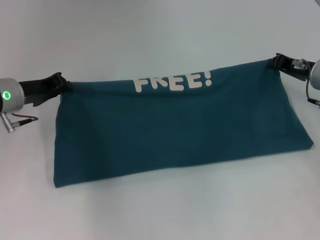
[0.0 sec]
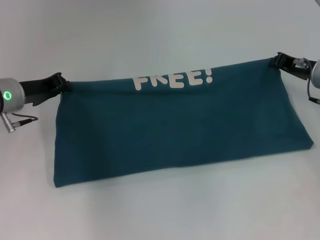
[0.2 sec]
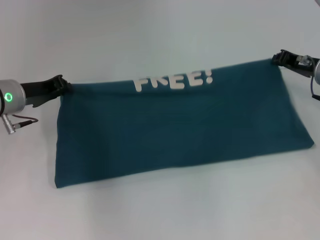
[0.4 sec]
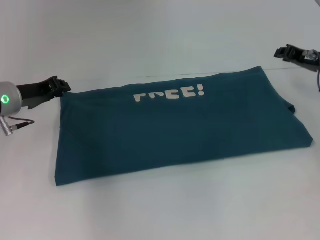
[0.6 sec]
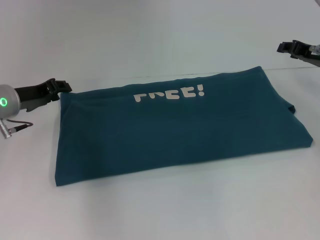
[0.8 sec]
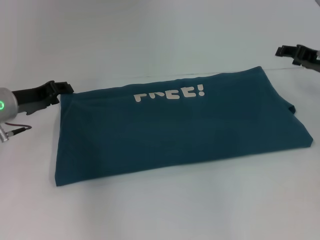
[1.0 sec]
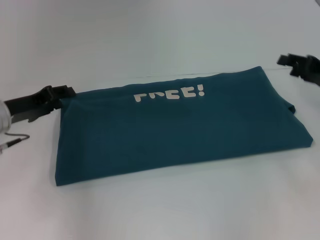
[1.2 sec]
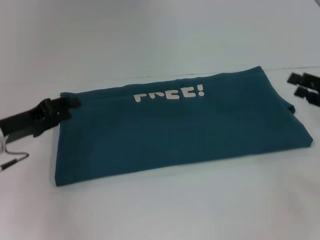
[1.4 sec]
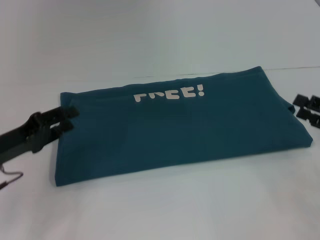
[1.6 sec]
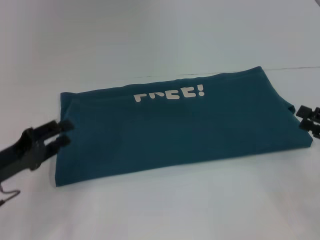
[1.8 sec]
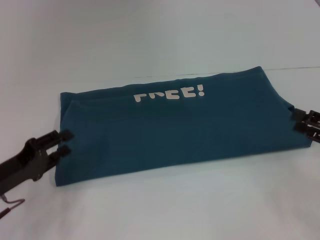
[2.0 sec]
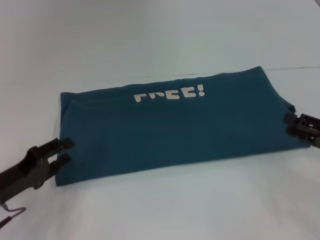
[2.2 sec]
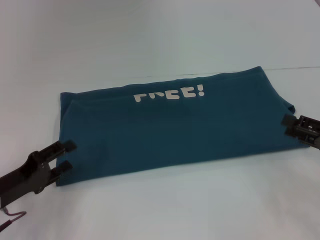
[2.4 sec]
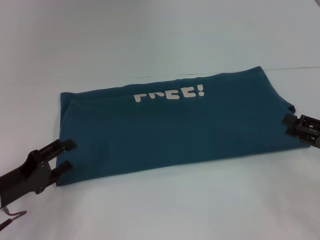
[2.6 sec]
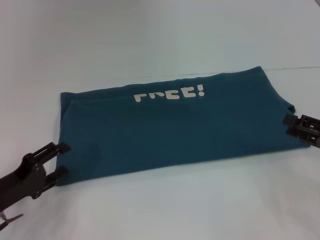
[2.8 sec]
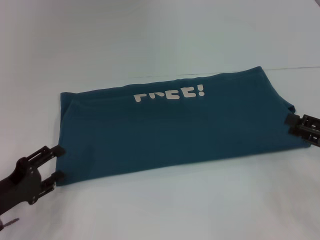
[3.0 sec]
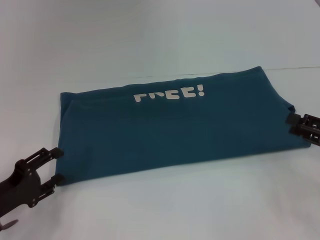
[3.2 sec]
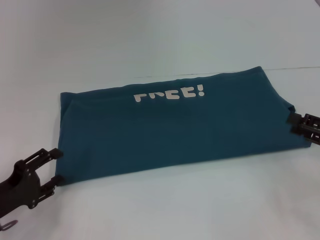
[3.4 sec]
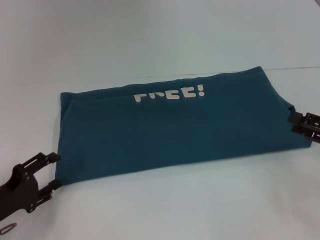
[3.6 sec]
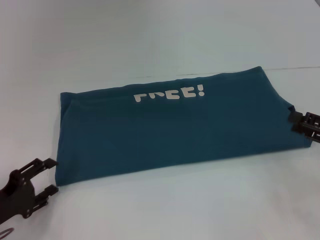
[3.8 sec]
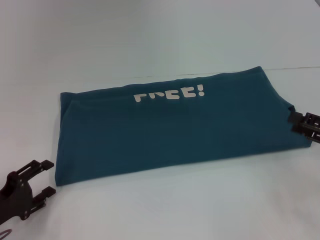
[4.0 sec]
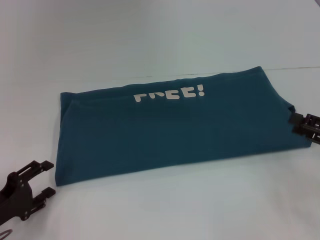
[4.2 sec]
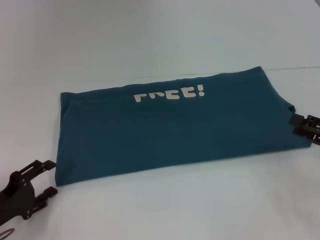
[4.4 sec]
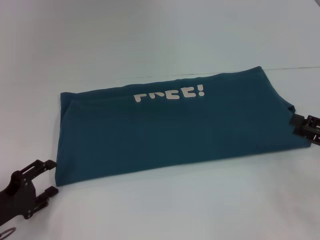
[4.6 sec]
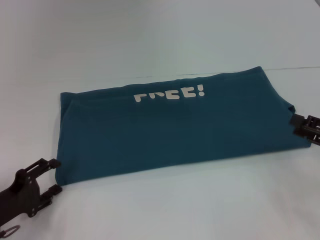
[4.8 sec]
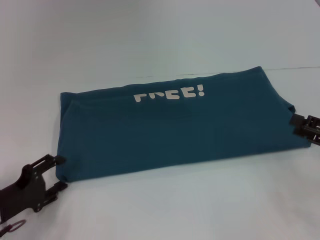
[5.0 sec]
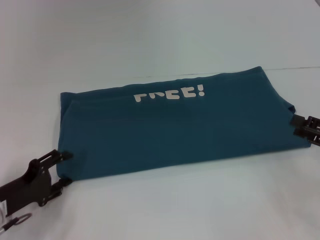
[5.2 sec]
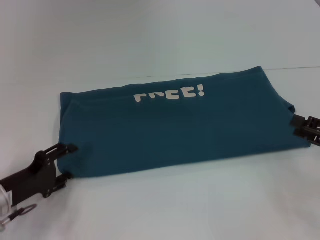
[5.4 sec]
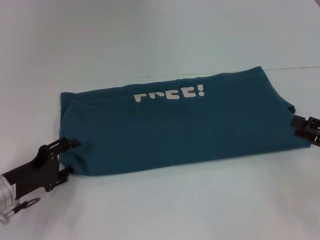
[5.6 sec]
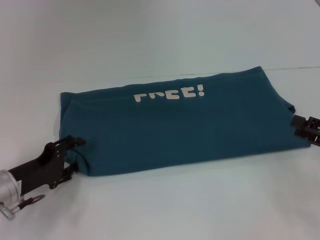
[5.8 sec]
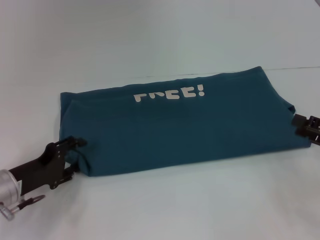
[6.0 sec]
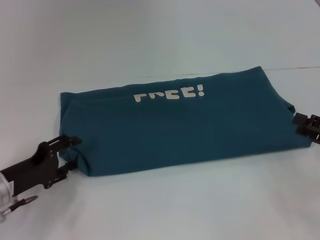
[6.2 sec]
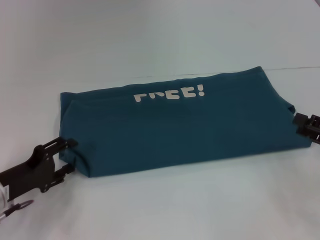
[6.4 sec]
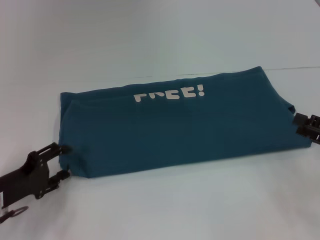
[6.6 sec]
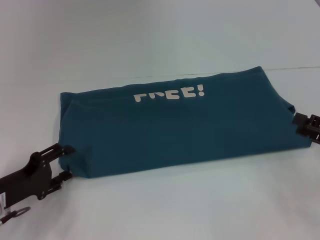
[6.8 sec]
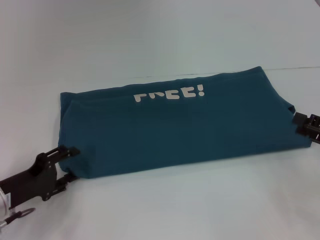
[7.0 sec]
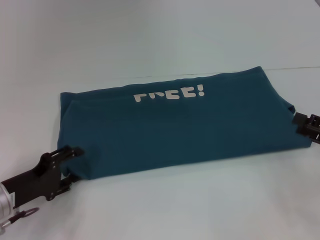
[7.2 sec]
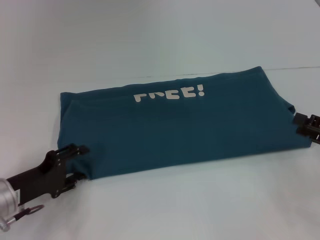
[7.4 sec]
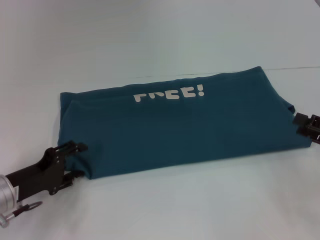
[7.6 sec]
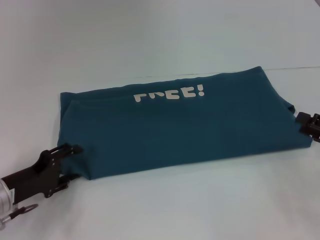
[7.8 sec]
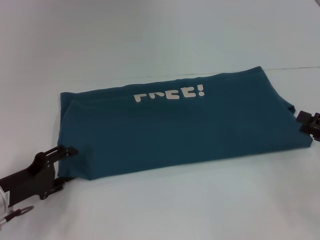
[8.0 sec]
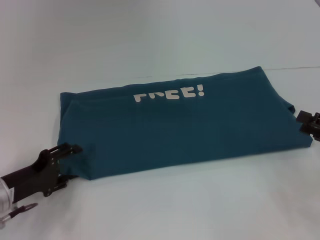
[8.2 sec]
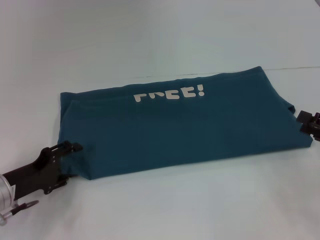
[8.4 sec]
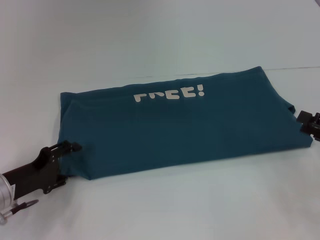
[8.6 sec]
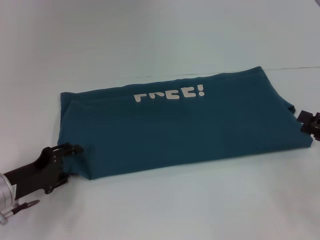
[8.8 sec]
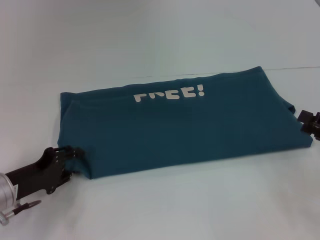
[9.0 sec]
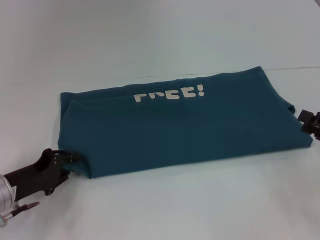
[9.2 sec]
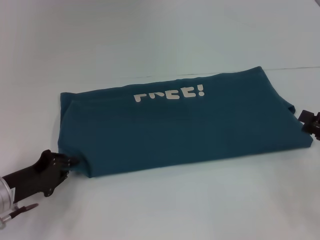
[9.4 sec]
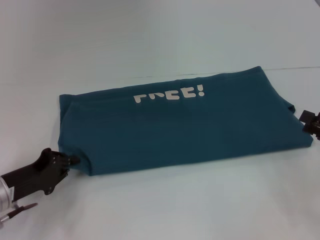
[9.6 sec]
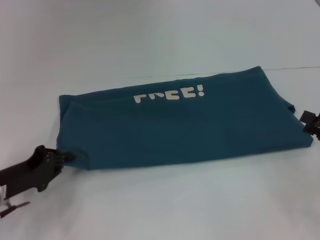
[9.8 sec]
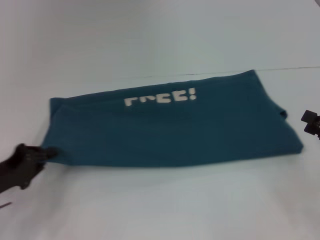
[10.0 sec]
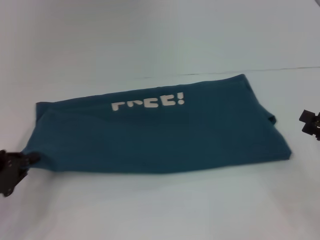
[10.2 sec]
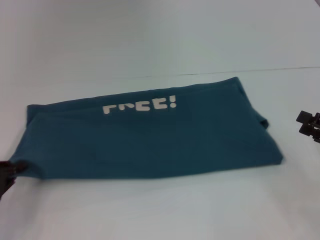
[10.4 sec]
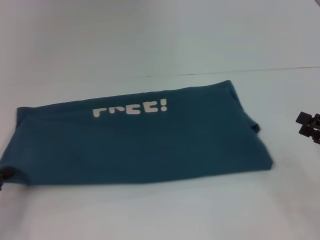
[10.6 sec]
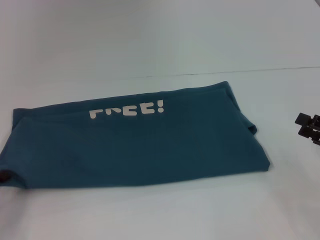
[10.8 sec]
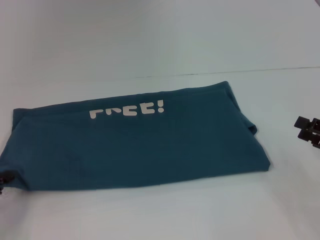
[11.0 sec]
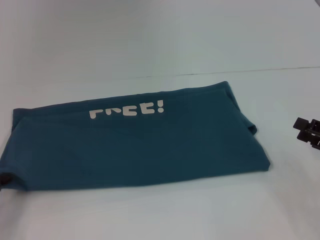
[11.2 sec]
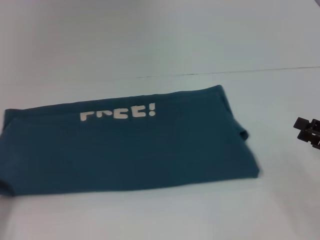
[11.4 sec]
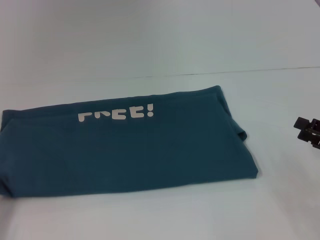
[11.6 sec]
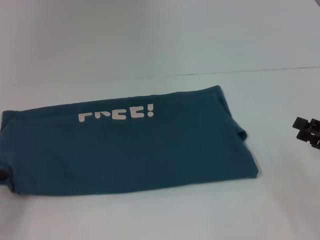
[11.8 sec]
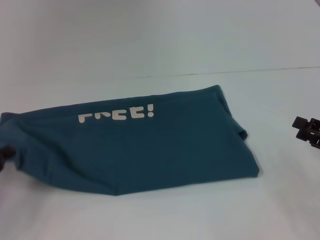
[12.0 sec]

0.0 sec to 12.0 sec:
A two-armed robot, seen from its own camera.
0.0 sec to 1.6 sec: The left gripper shifts about 10 cm backward, and opens its fingers; the right gripper moves backward and to the right, some 15 cm, and opens up.
1.6 sec to 3.0 sec: The left gripper shifts approximately 10 cm downward and backward.
3.0 sec to 4.4 sec: There are only small adjustments of the grippers.
4.4 sec to 6.0 sec: The left gripper is displaced forward by some 5 cm.
6.0 sec to 7.6 sec: There are only small adjustments of the grippers.
7.6 sec to 9.0 sec: Both grippers stay about where they are.
9.0 sec to 10.4 sec: The left gripper goes approximately 5 cm to the left, and closes up.
10.4 sec to 12.0 sec: There are only small adjustments of the grippers.

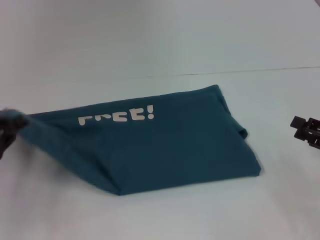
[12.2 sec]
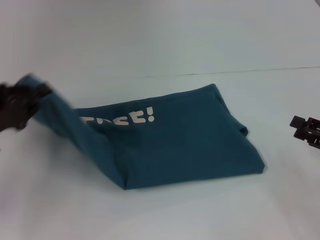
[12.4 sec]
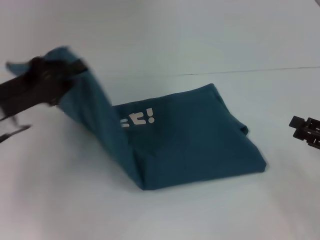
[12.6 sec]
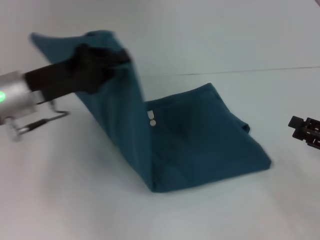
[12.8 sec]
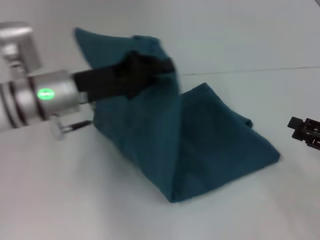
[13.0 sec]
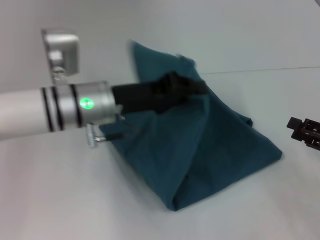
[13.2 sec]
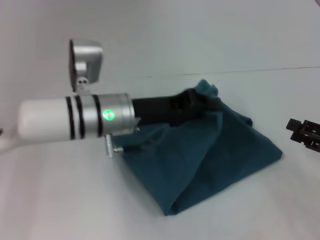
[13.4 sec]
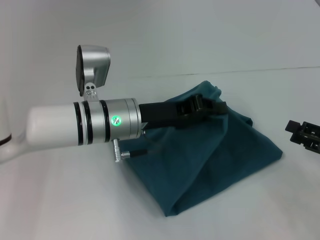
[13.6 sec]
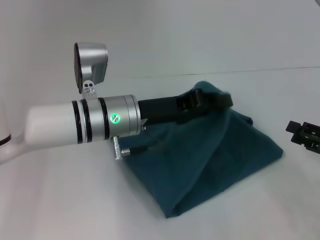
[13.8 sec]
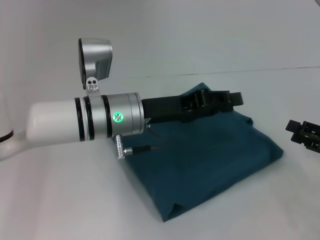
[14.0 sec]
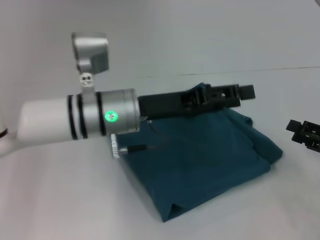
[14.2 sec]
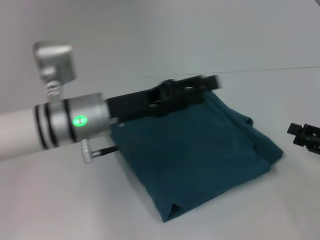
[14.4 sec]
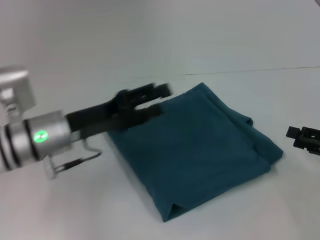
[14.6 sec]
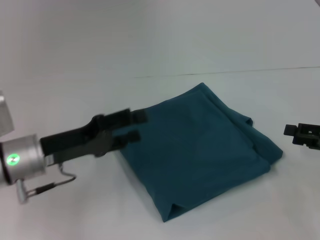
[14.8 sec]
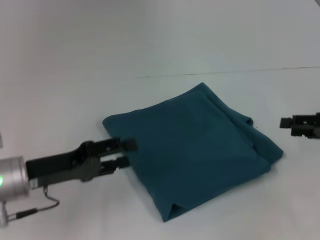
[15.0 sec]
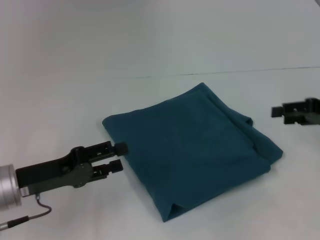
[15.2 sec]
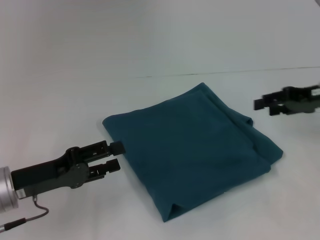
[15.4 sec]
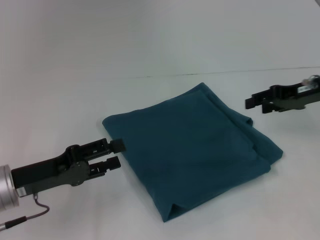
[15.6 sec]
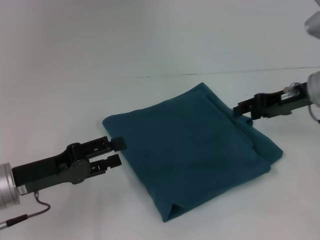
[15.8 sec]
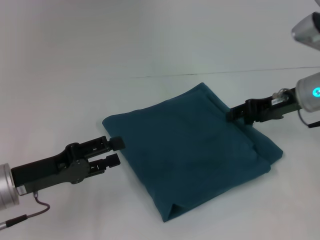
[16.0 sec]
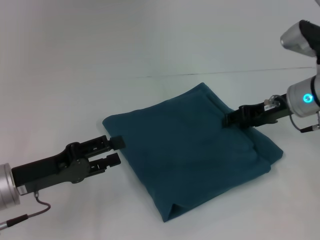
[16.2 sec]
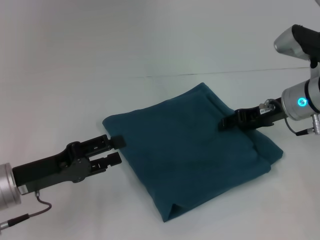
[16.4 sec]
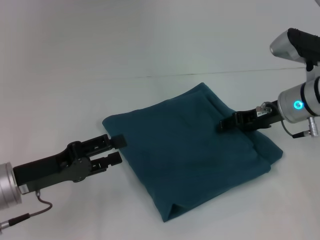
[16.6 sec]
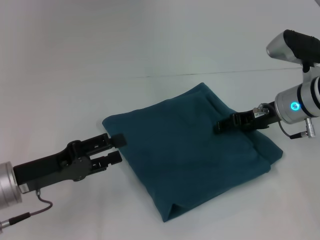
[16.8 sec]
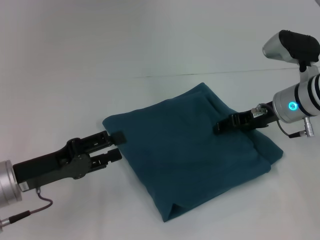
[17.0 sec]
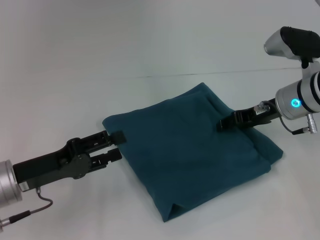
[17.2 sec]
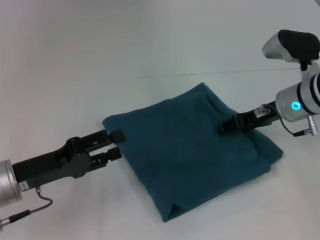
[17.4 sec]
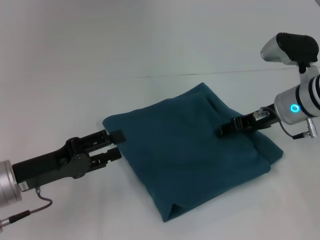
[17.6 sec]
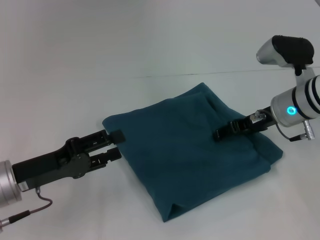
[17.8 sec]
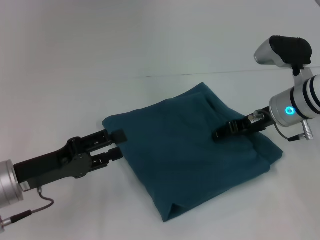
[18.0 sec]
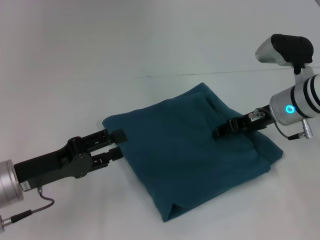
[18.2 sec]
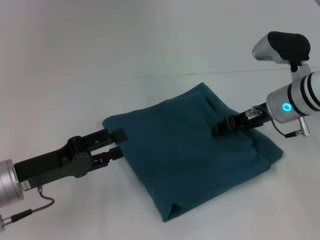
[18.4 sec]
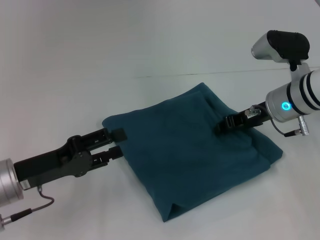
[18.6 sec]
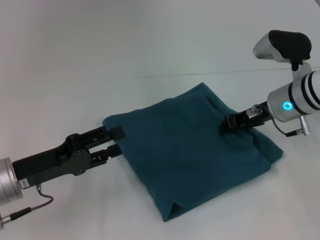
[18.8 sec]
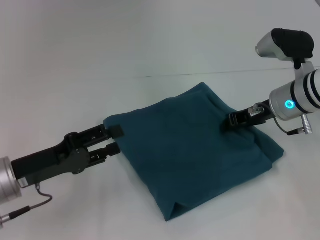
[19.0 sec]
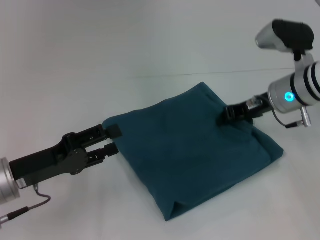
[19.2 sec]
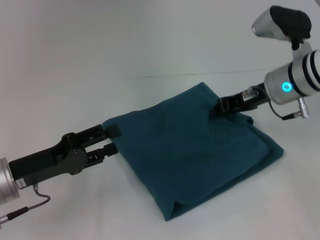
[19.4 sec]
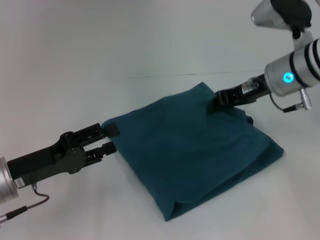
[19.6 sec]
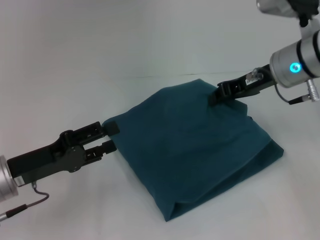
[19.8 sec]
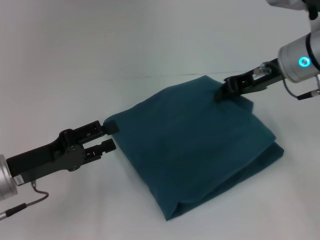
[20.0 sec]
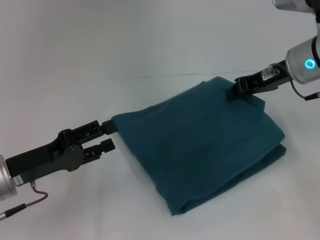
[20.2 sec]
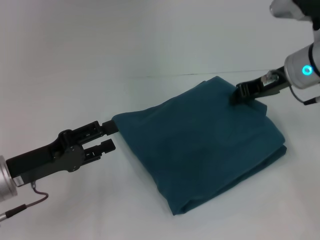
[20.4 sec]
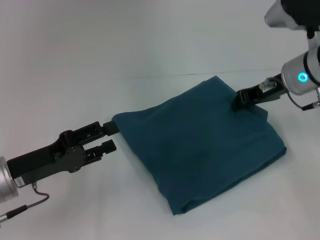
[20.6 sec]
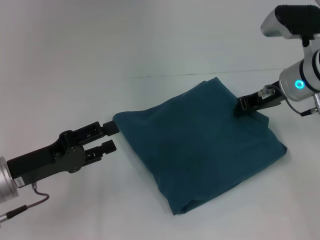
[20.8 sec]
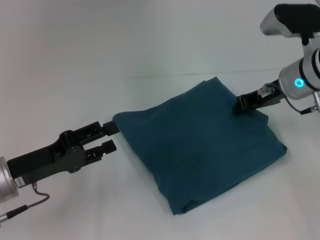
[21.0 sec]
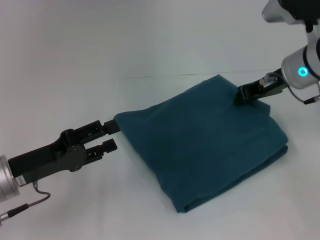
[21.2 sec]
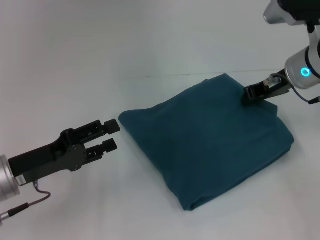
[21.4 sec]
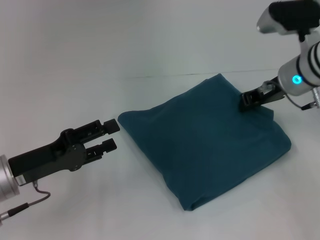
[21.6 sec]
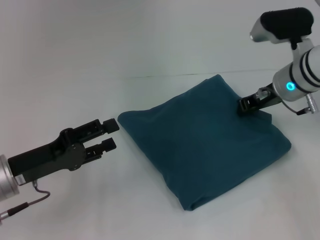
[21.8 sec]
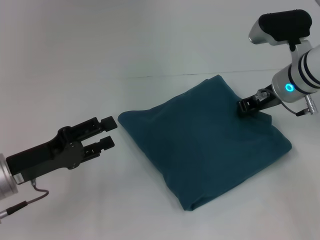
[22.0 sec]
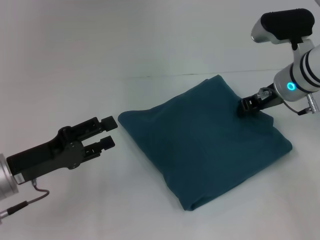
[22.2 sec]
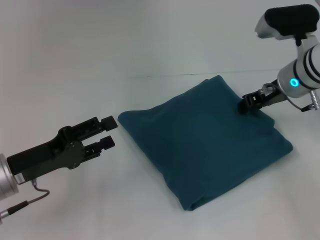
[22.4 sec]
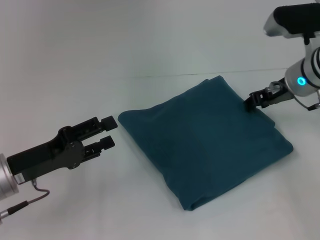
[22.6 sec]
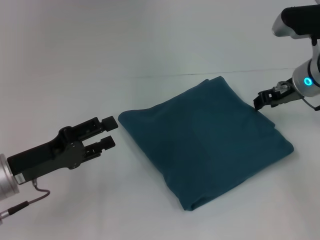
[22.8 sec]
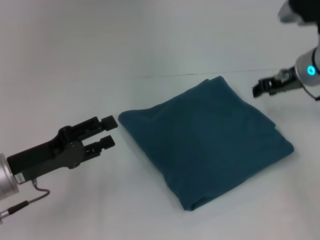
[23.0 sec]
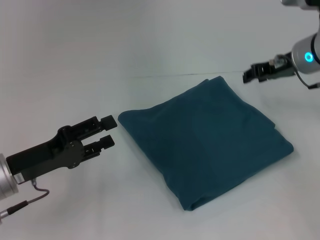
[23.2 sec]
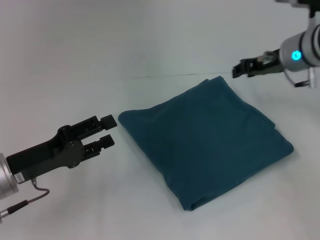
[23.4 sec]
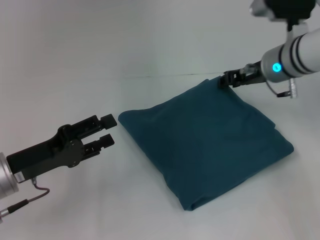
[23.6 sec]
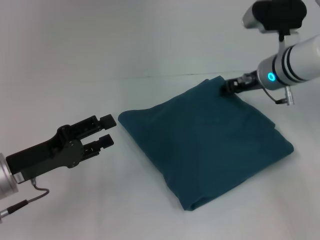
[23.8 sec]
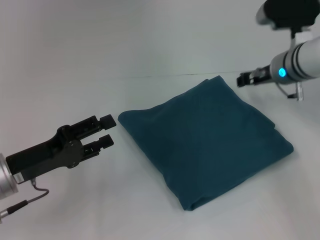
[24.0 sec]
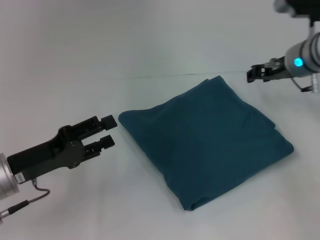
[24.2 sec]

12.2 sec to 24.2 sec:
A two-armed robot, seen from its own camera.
12.2 sec to 13.8 sec: The left gripper is displaced to the right by roughly 25 cm.
13.8 sec to 15.2 sec: The right gripper travels forward and upward by some 10 cm, while the left gripper shifts approximately 20 cm to the left and backward, and opens its fingers.
15.2 sec to 16.6 sec: The right gripper heads to the left and forward, covering roughly 15 cm.
16.6 sec to 18.2 sec: The grippers move only a little.
18.2 sec to 19.8 sec: The right gripper heads upward, covering some 10 cm, and closes its fingers.
19.8 sec to 21.2 sec: The grippers make only small movements.
21.2 sec to 24.2 sec: The grippers move only a little.
